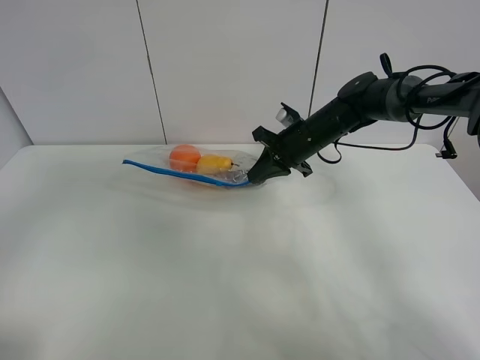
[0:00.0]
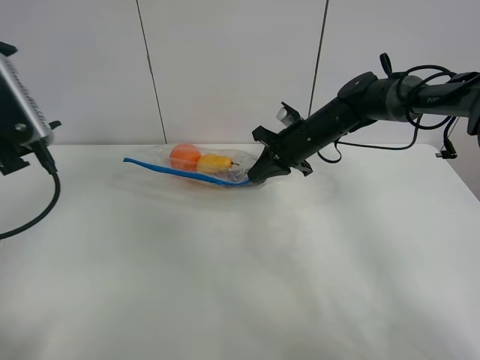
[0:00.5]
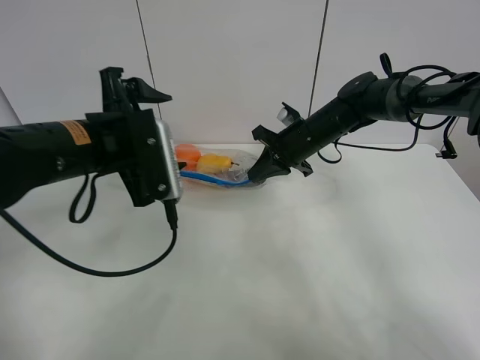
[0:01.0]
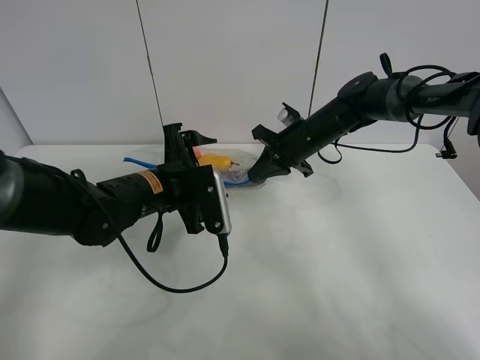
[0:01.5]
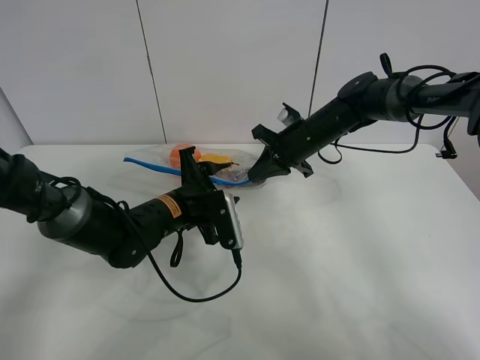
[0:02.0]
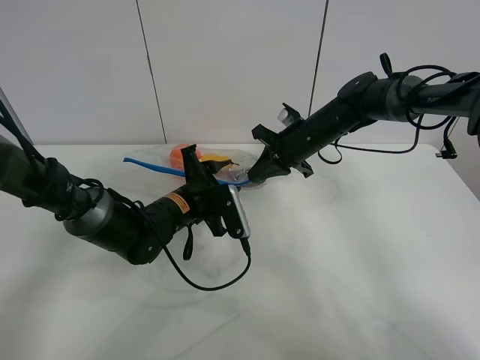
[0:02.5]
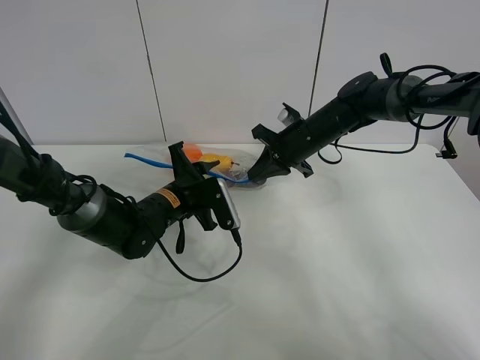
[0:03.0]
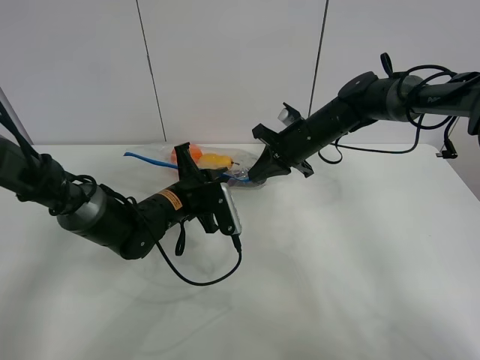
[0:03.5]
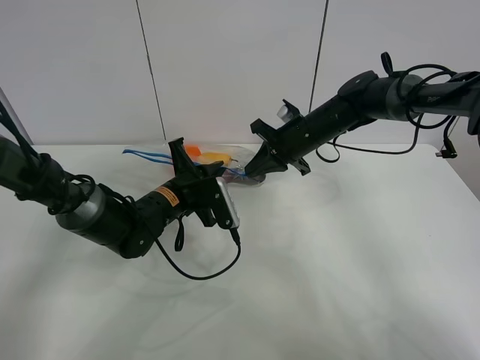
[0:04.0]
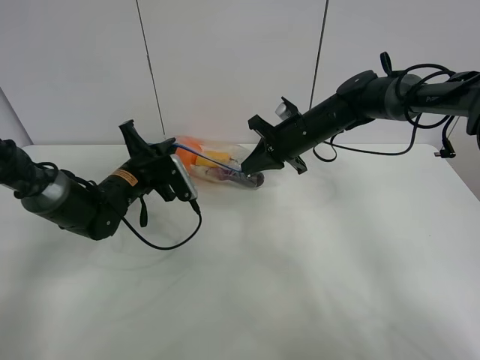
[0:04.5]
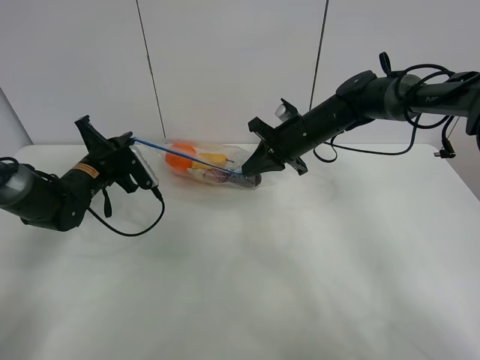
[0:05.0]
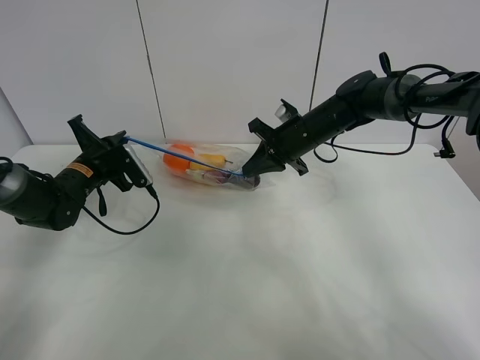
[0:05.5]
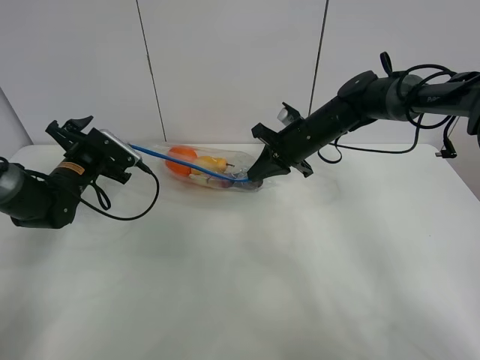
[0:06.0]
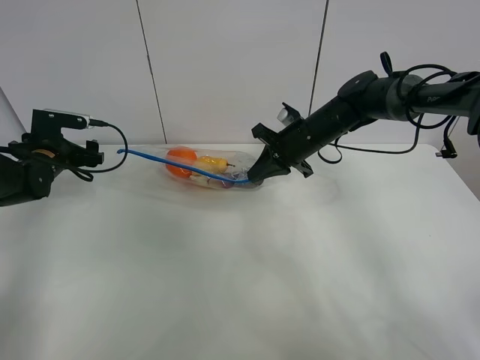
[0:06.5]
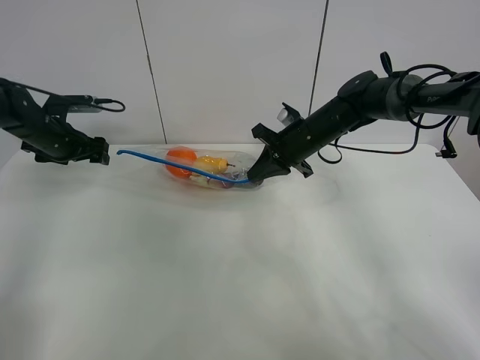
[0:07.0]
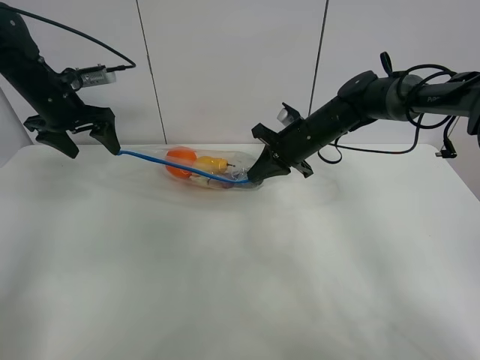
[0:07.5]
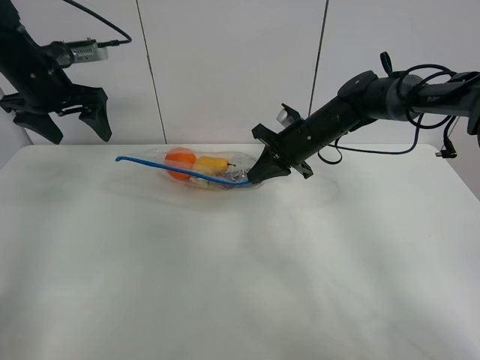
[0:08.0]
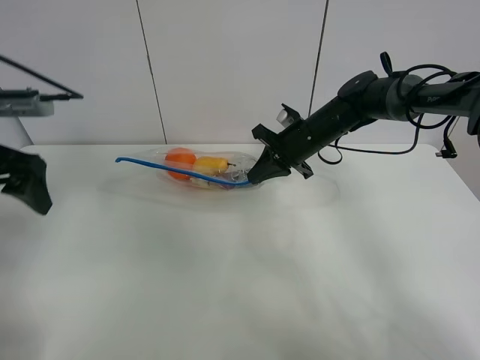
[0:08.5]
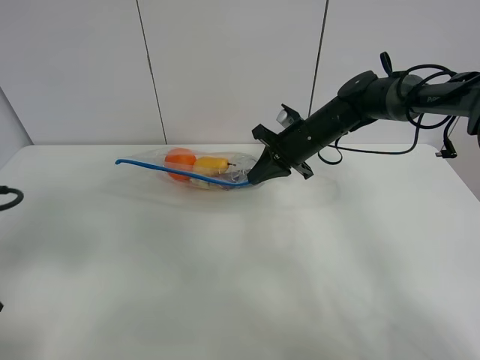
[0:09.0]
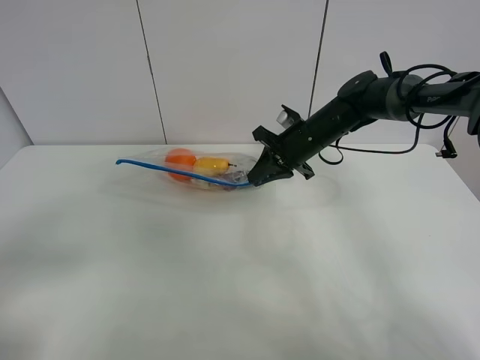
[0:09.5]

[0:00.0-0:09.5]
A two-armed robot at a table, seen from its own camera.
Step, 0:00.0 to 0:05.5: Pull the fruit bag with left gripper.
0:00.0 to 0:02.0: The left gripper heads downward, to the right and forward, covering some 35 cm.
0:02.0 to 0:04.0: The left gripper closes its fingers.
0:04.0 to 0:05.5: The left gripper goes about 15 cm to the left.
0:05.5 to 0:07.5: The left gripper shifts about 15 cm upward, and opens.
0:07.5 to 0:09.5: The left gripper goes about 40 cm backward.

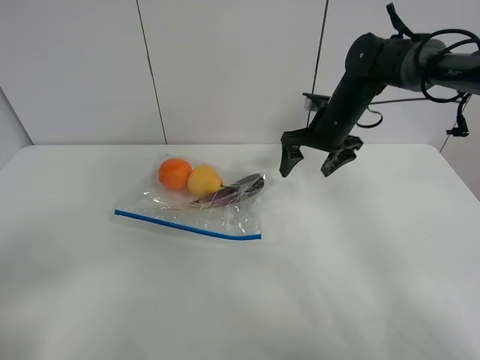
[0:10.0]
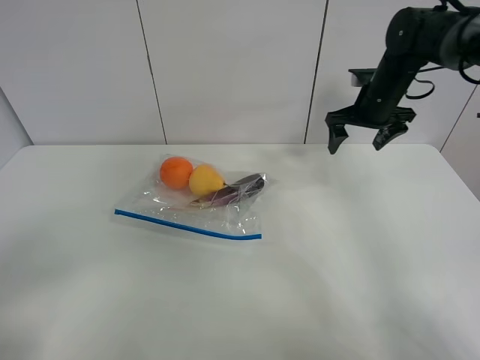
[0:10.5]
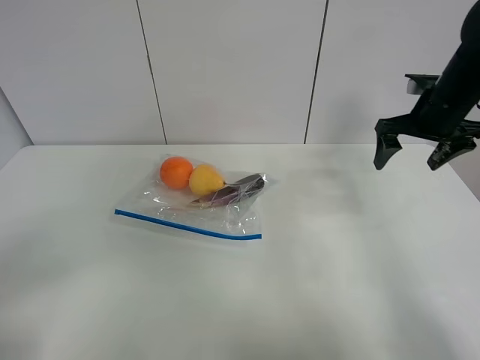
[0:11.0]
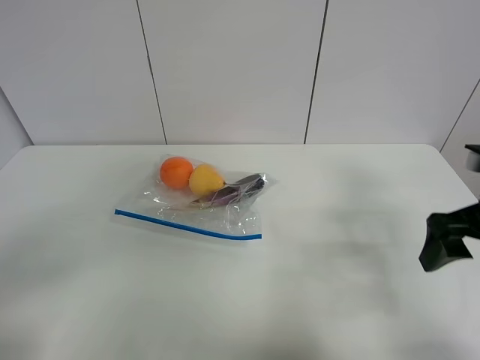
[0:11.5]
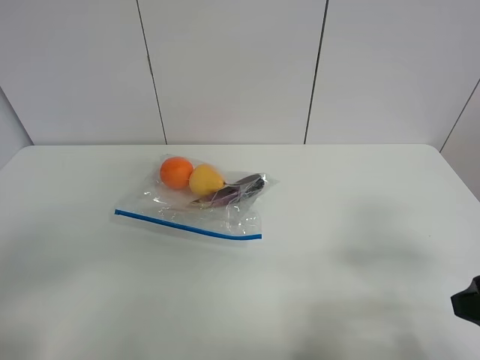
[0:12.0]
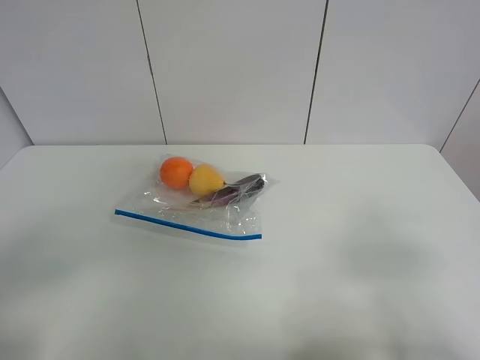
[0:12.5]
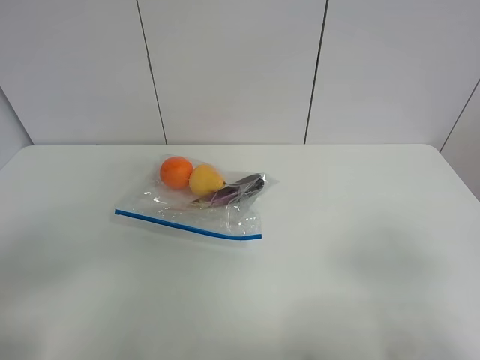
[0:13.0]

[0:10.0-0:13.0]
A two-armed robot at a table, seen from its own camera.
0:10.0 to 0:11.5: The right gripper travels backward and to the right by roughly 30 cm.
0:11.5 to 0:13.0: The right gripper heads backward, covering roughly 20 cm.

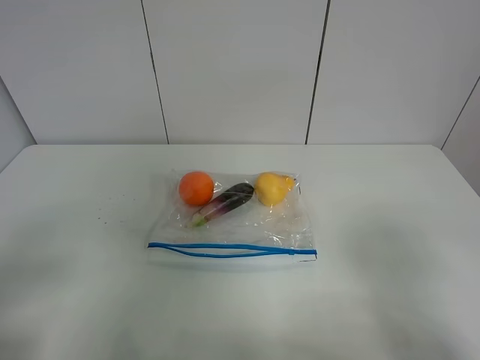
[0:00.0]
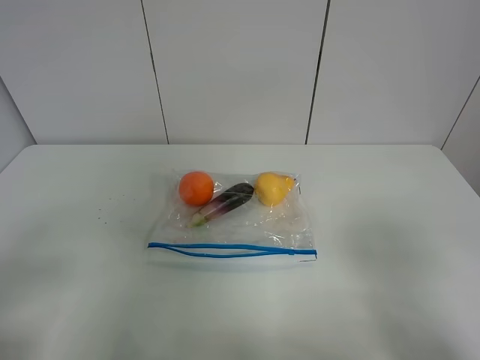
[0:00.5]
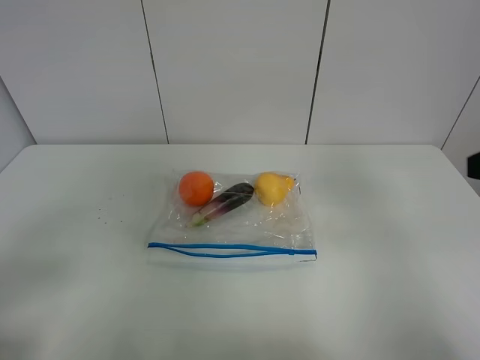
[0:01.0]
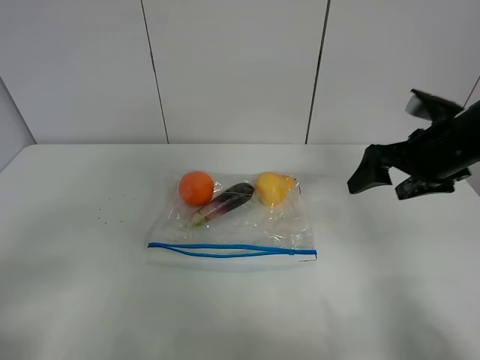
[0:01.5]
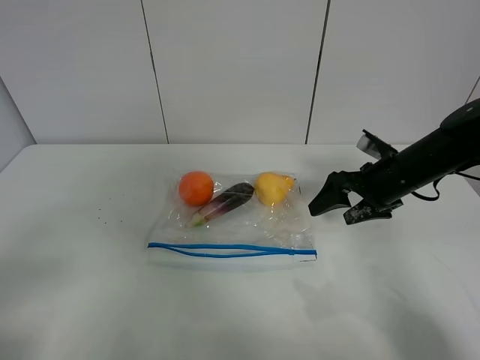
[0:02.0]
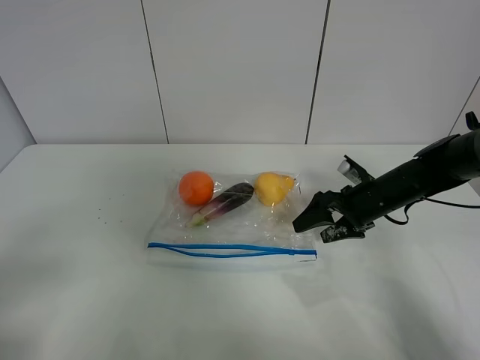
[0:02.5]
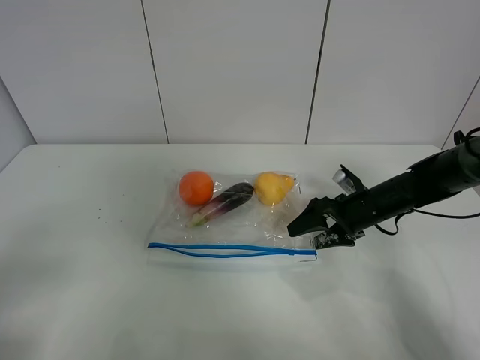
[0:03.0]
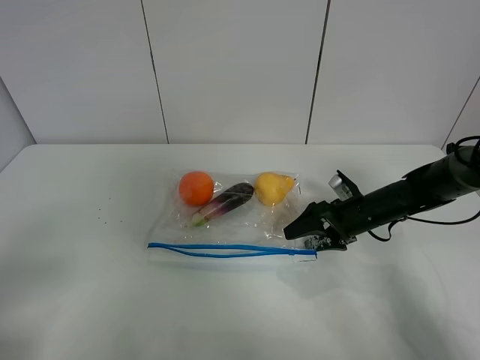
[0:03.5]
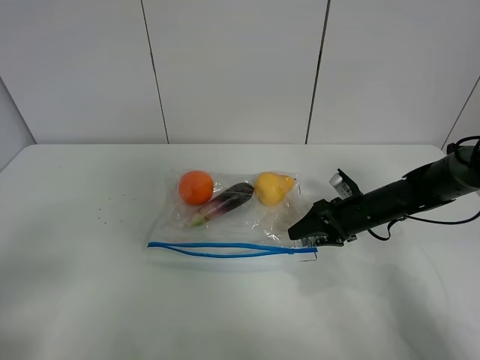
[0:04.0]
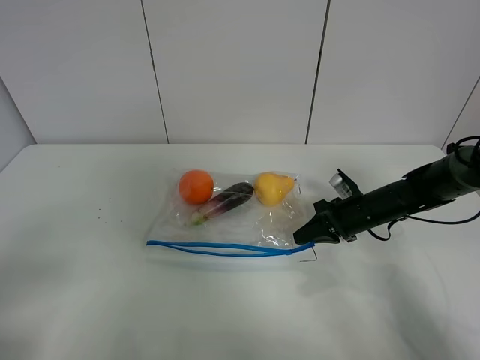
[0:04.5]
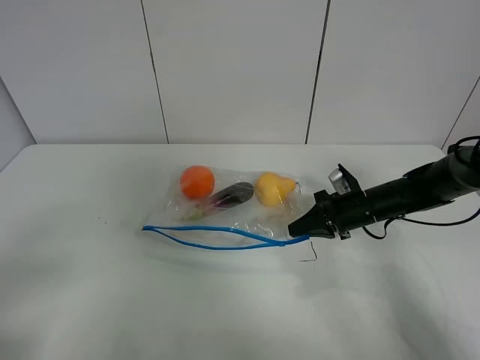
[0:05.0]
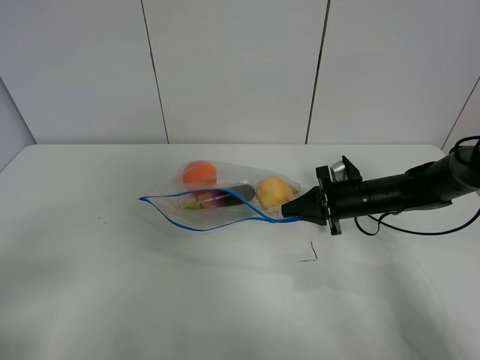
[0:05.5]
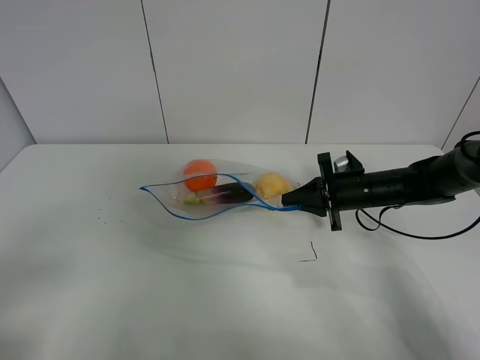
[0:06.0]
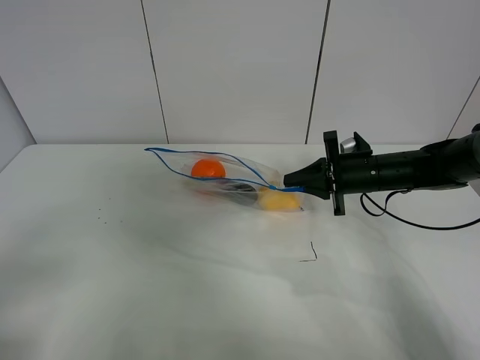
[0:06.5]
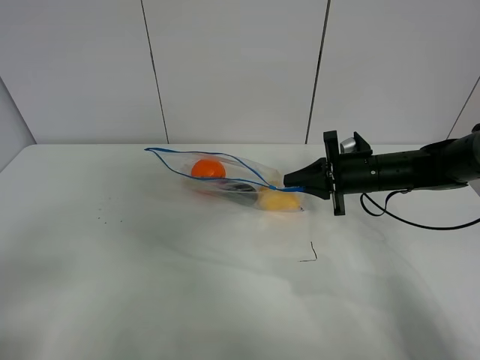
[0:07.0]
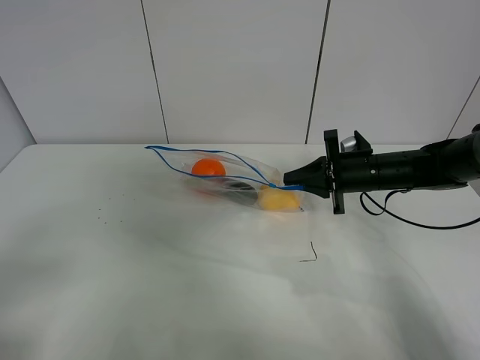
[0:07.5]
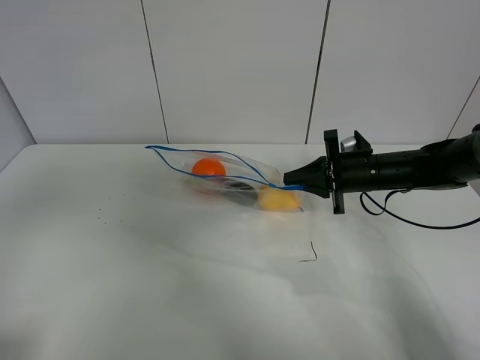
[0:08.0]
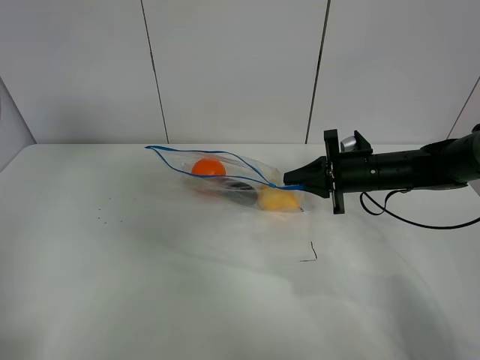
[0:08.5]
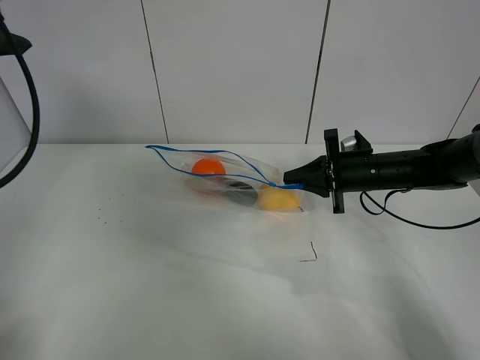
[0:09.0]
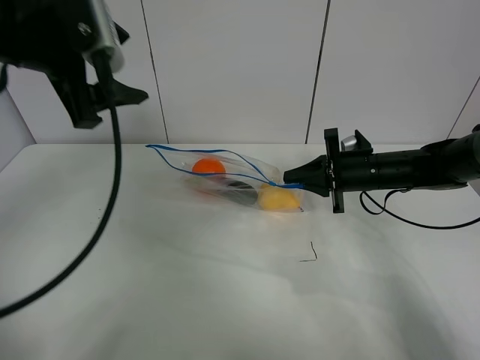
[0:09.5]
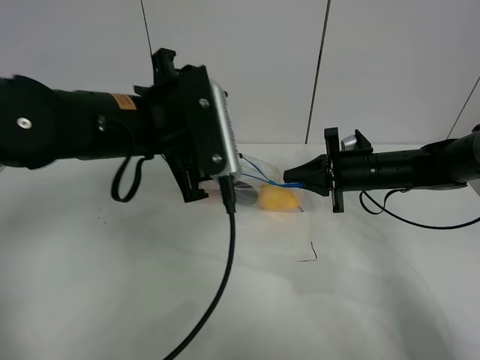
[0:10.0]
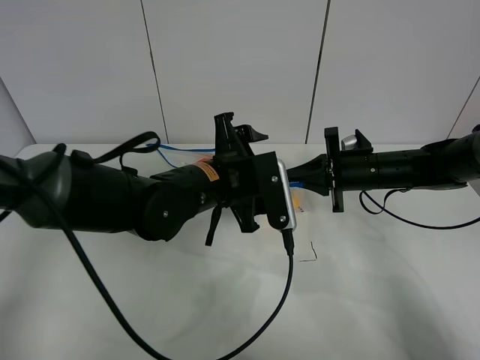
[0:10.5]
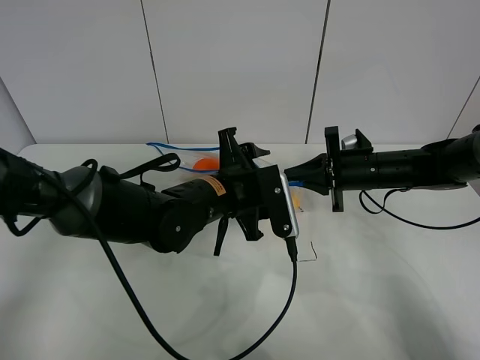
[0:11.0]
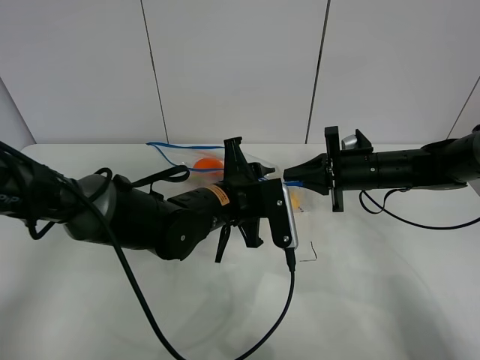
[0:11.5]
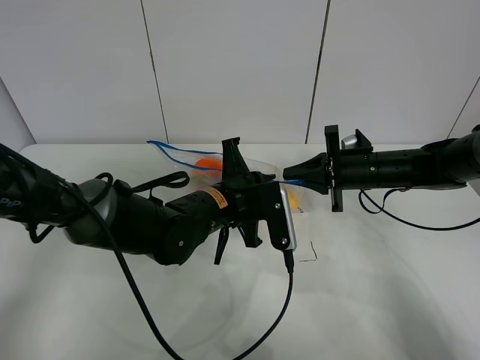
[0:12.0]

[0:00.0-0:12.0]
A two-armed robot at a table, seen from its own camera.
Step, 0:00.0 to 0:04.5: Grasp the fruit bag with right gripper.
Step, 0:05.0 to 0:06.5: Lift the fruit bag with your right gripper.
0:00.0 to 0:02.0: The right gripper is displaced forward by roughly 35 cm.
0:02.0 to 0:04.0: The right gripper shifts approximately 10 cm downward, and closes.
0:04.0 to 0:06.0: The right gripper closes up.
0:06.0 to 0:08.0: The left gripper goes some 15 cm upward and forward.
0:08.0 to 0:10.0: The left gripper heads to the right, forward and downward, covering approximately 30 cm.
0:10.0 to 0:12.0: The left gripper travels downward and to the right by about 15 cm, and closes its fingers.

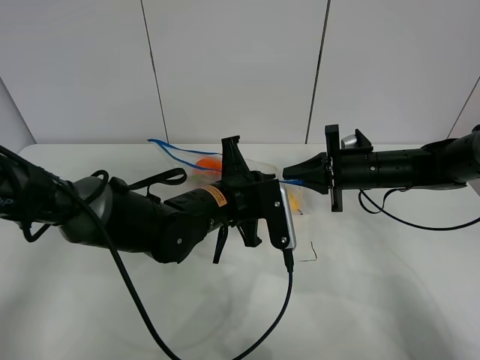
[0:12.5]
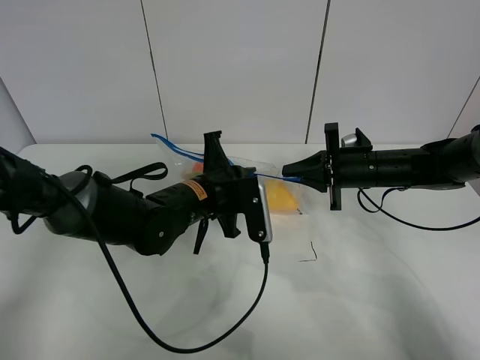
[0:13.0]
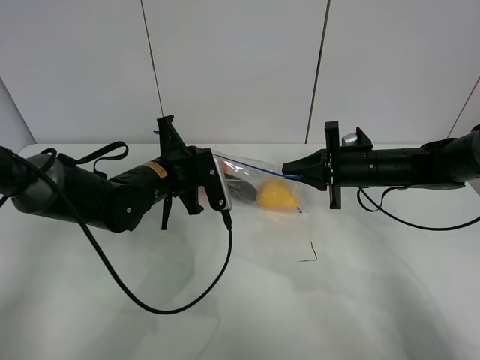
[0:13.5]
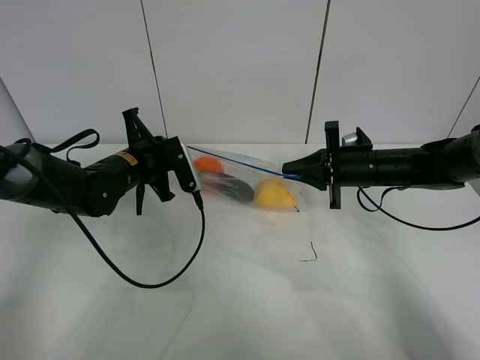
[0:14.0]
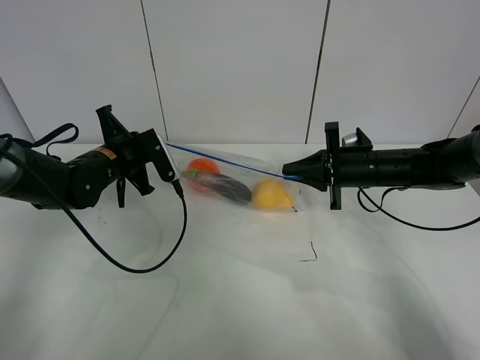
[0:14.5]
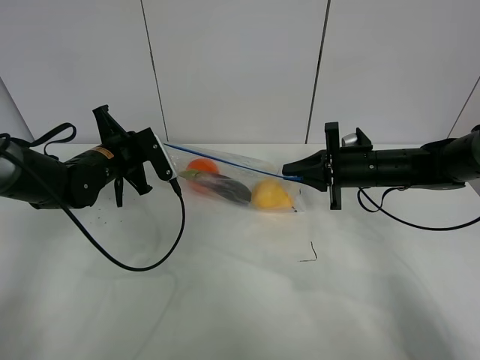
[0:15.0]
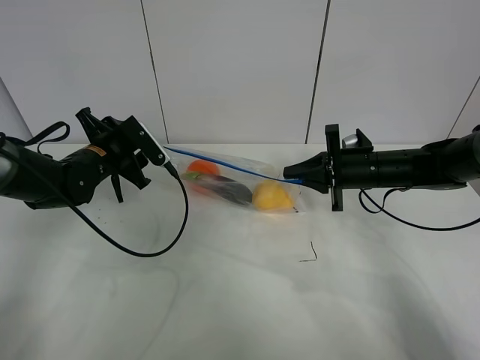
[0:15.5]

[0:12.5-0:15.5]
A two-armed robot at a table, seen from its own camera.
0:12.5 to 0:14.0: The left gripper moves to the left and forward, some 15 cm.
0:14.0 to 0:15.5: The left gripper shifts approximately 5 cm to the left, and opens up.
